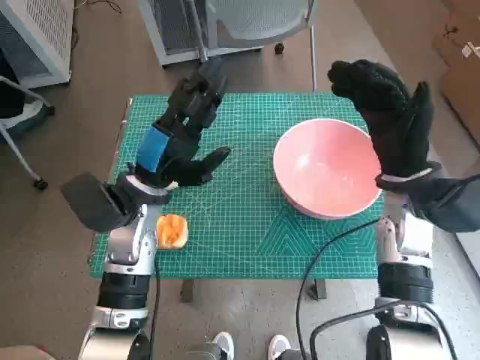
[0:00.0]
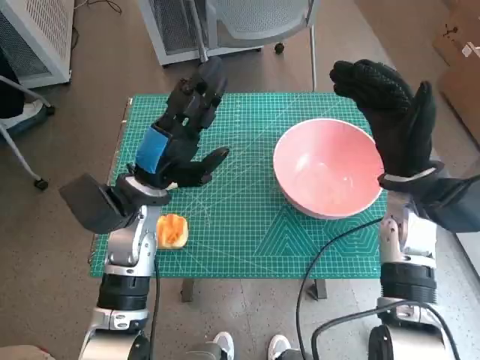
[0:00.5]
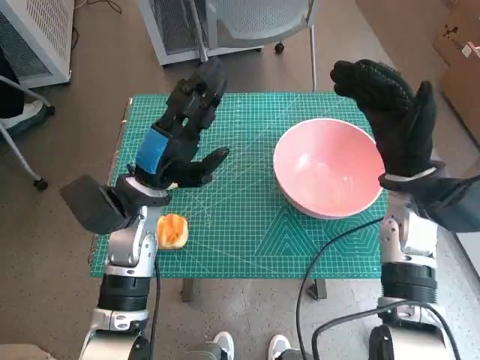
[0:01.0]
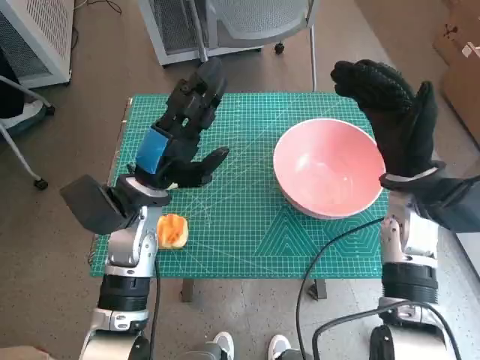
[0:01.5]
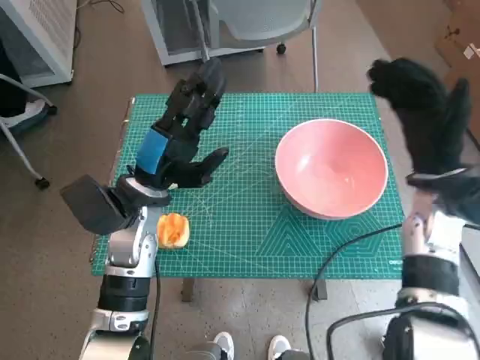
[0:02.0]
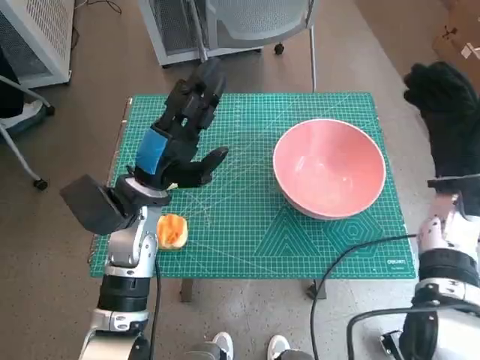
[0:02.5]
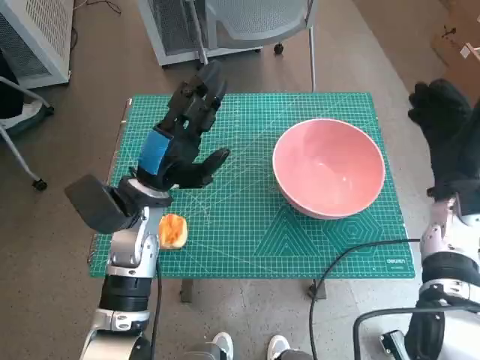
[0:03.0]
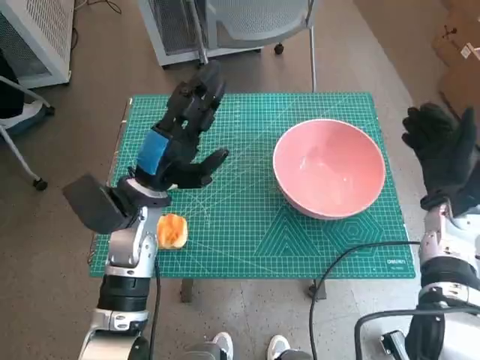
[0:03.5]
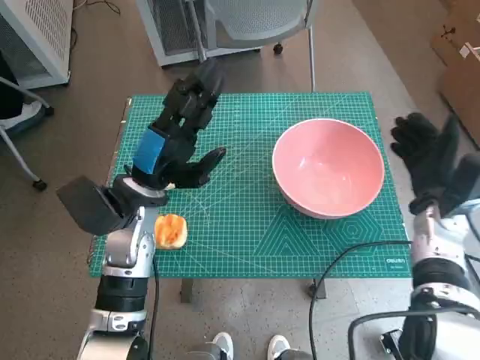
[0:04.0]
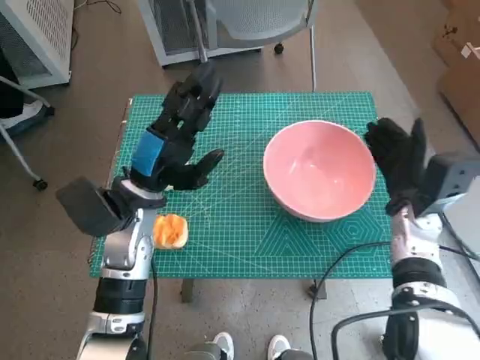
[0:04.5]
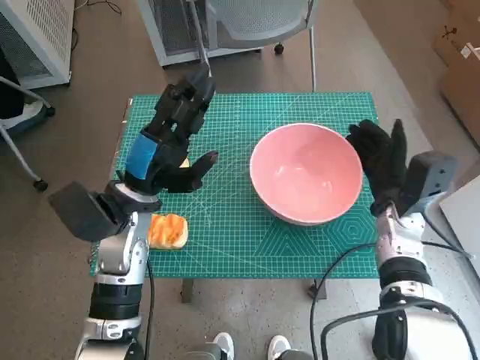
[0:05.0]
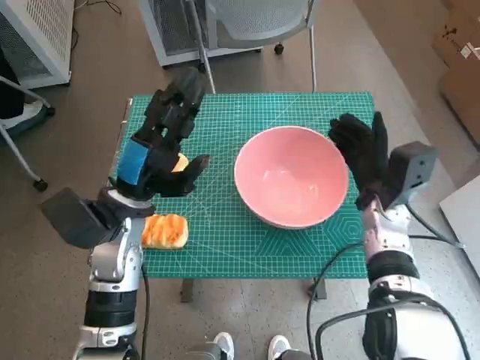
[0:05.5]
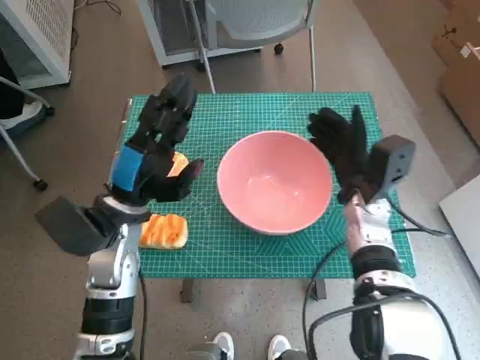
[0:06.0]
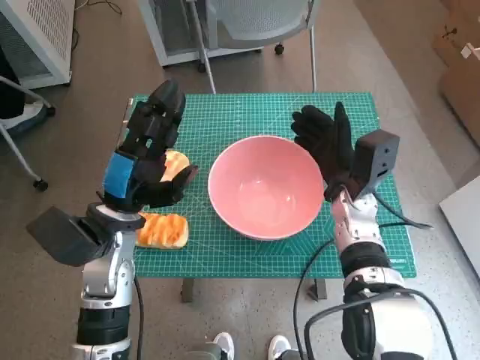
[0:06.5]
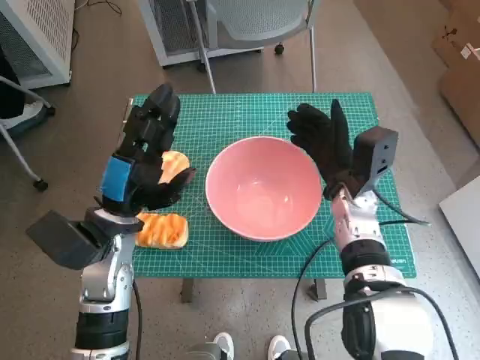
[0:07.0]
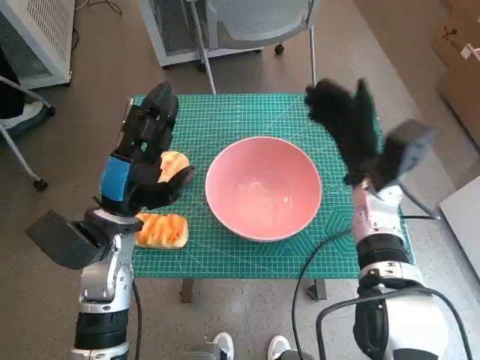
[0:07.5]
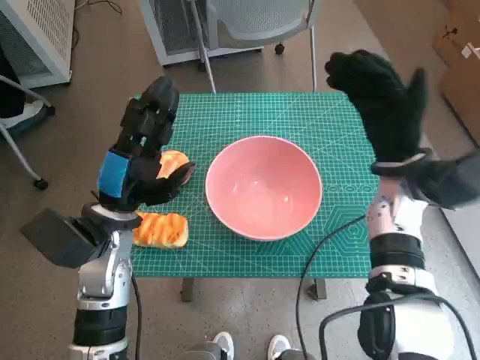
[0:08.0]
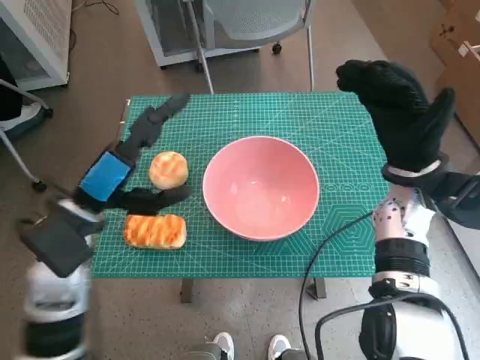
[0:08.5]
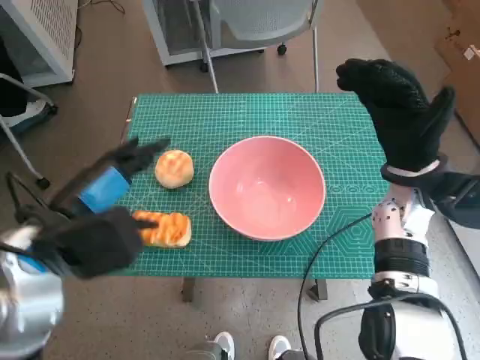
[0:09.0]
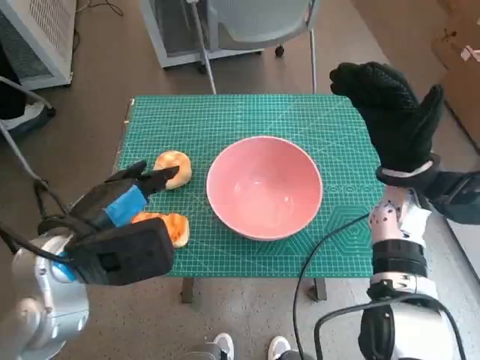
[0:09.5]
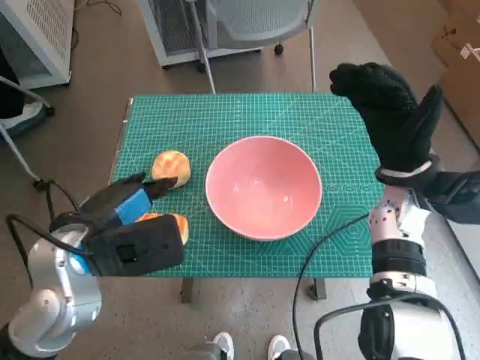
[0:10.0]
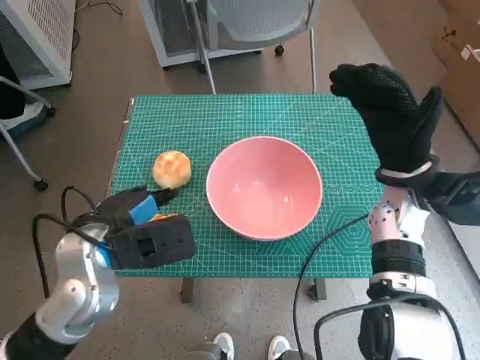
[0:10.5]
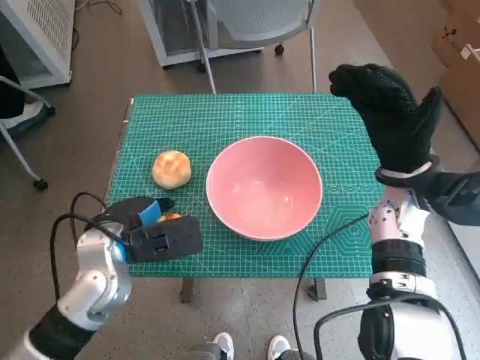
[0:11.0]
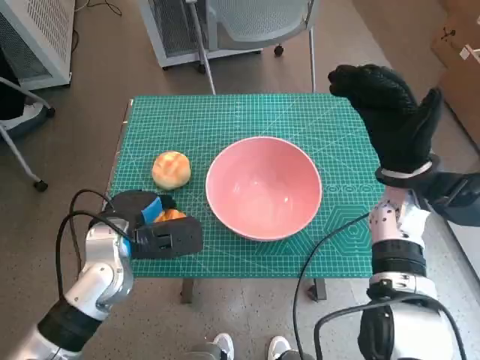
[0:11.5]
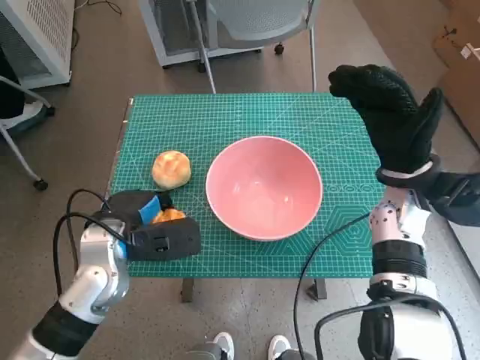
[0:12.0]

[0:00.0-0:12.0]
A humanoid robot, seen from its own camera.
Step, 0:00.0 to 0:07.0: Move the pink bowl to the center of table with right hand.
Step, 0:07.5 to 0:11.0: Grasp the long bread with left hand.
0:02.0 to 0:04.0: The right hand goes about 5 cm downward.
0:04.0 to 0:06.0: The right hand is displaced to the left by approximately 10 cm.
0:06.0 to 0:08.0: The right hand is displaced upward by approximately 5 cm.
0:08.0 to 0:10.0: The left hand is displaced upward by approximately 5 cm.
0:10.0 to 0:12.0: The left hand is displaced downward by roughly 5 cm.

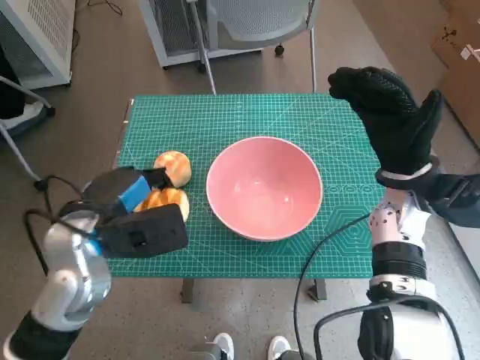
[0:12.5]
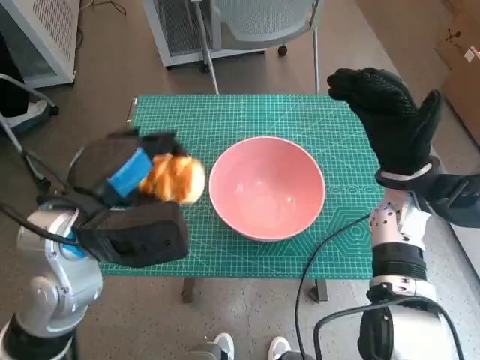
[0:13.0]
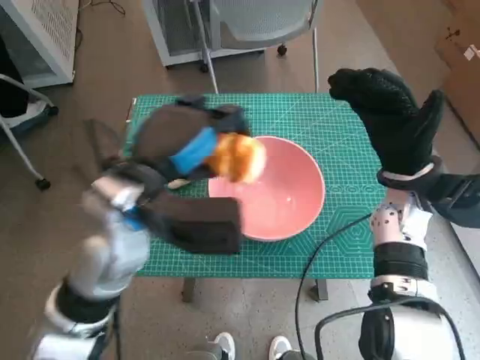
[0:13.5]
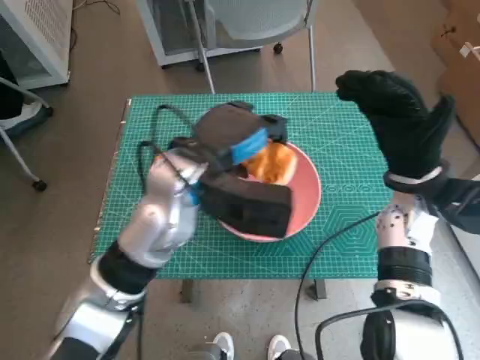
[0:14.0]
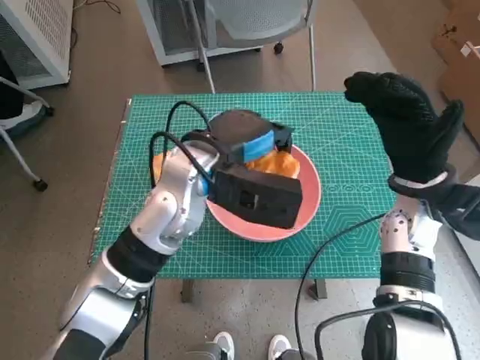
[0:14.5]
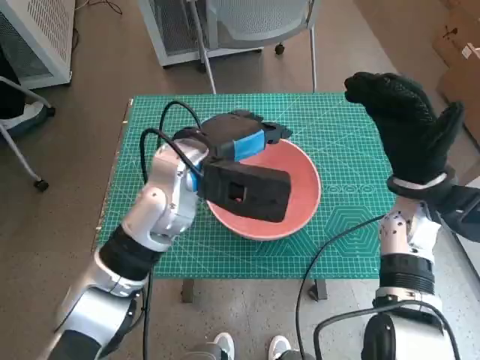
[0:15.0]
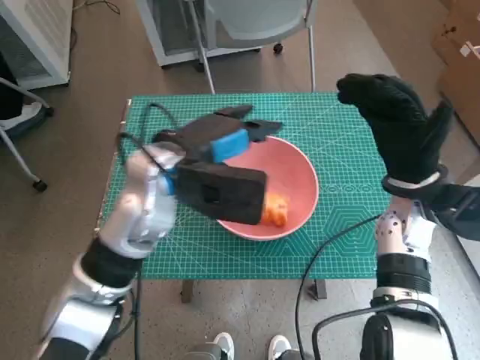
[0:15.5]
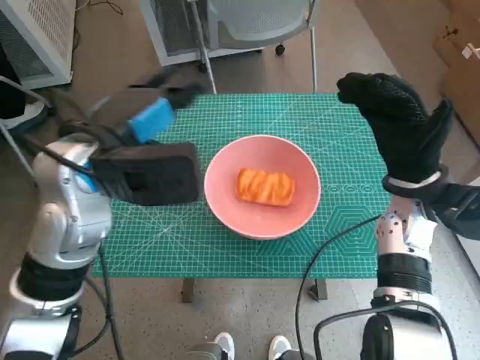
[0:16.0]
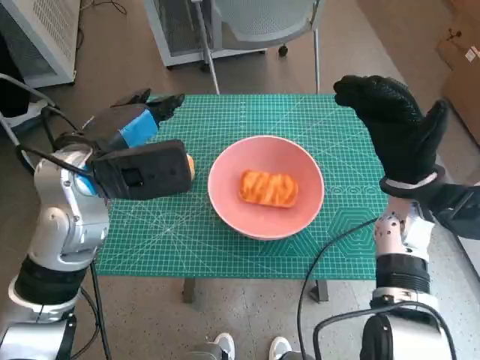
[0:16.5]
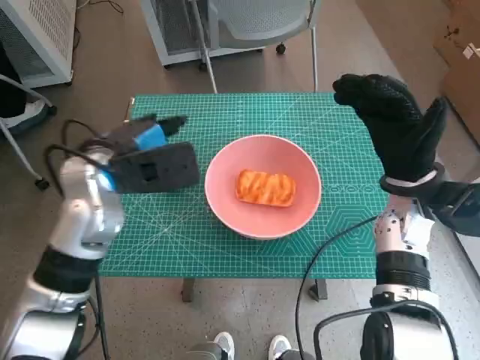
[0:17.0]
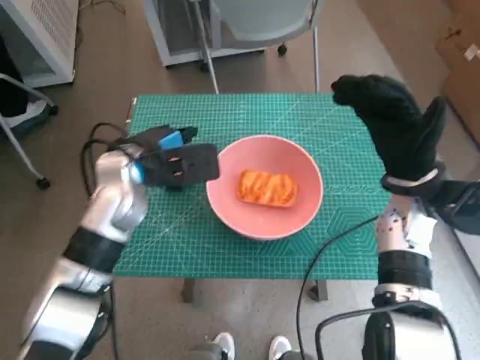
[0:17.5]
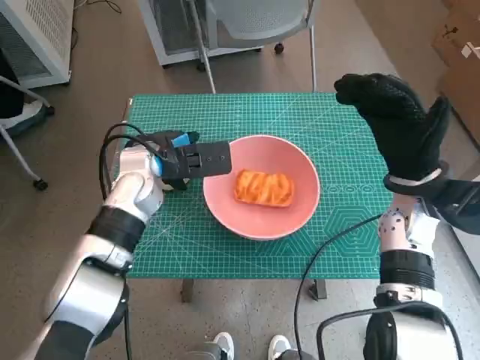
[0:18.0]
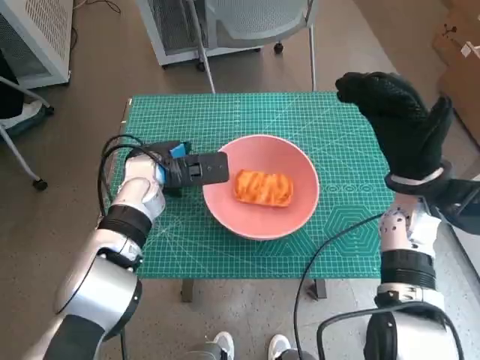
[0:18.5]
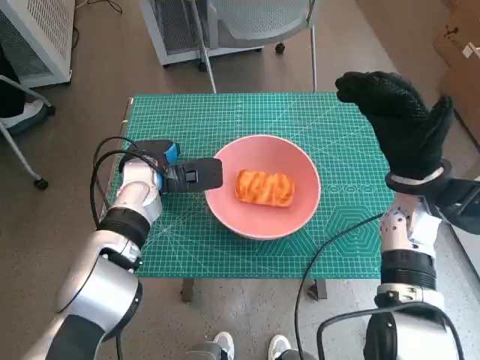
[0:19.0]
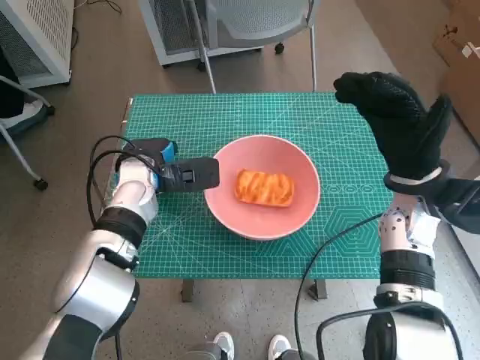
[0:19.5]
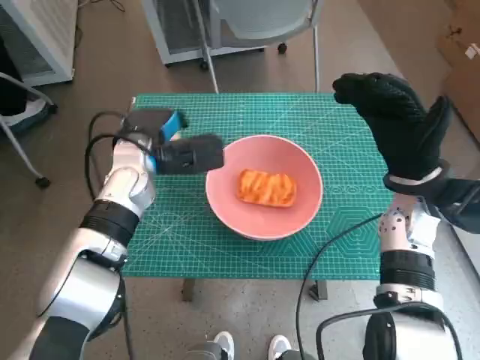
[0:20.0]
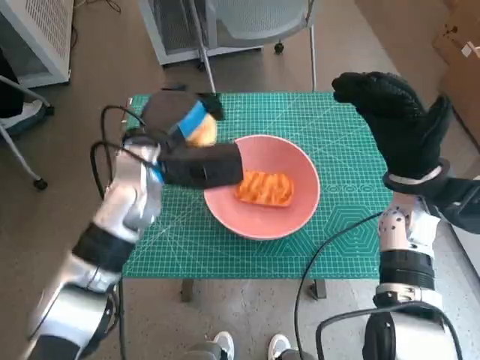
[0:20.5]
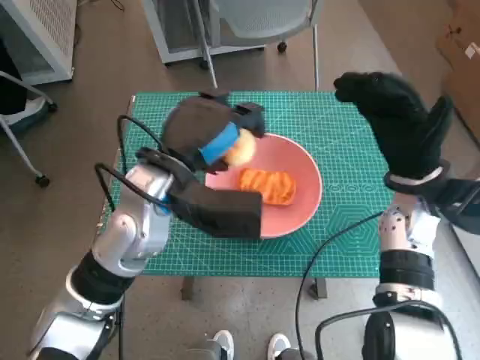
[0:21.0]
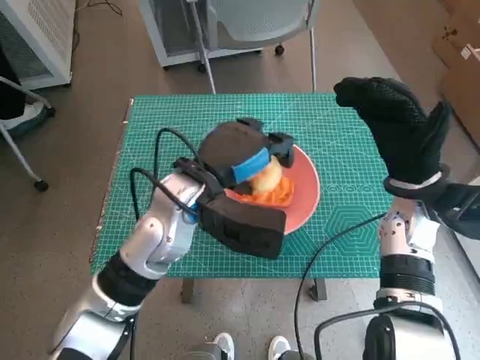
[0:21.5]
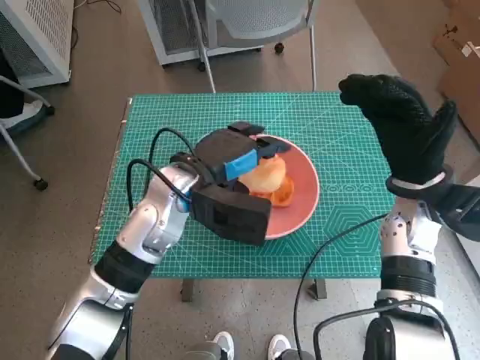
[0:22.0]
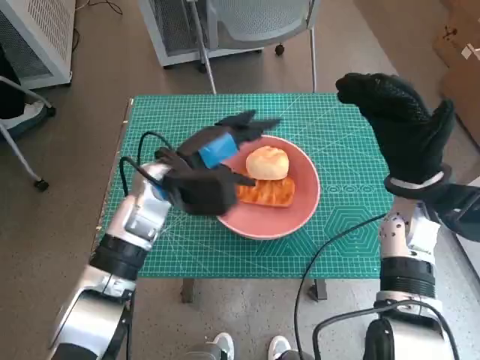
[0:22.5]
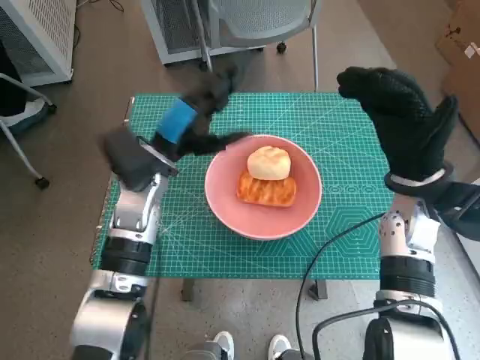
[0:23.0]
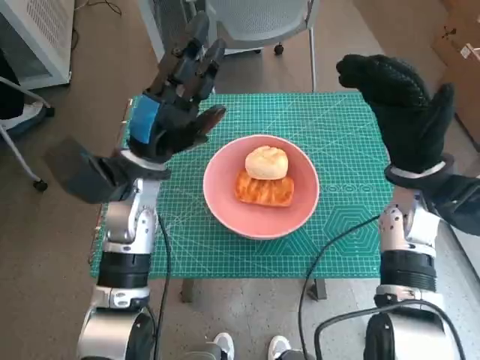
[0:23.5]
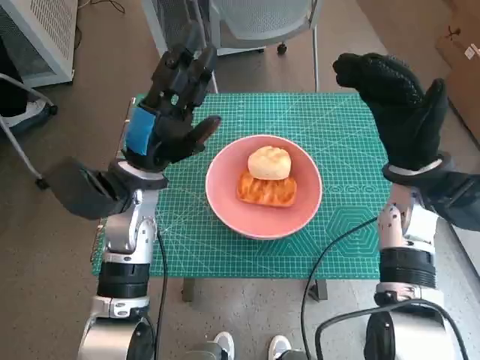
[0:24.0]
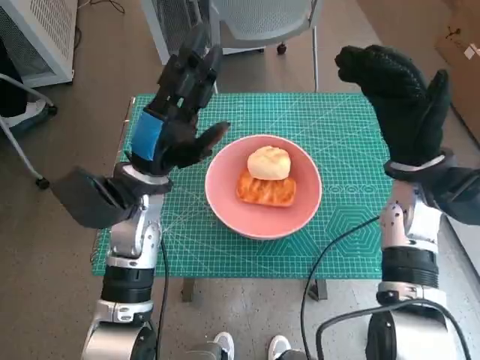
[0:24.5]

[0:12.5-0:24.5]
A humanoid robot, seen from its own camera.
Step, 0:12.5 to 0:15.0: Place the long bread in pink bowl with left hand.
Step, 0:15.5 to 0:19.0: Grasp the round bread with left hand.
Step, 0:19.5 to 0:22.0: Place the round bread in pink bowl with left hand.
0:12.5 to 0:14.5: The left hand is displaced to the right and forward by roughly 15 cm.
0:14.5 to 0:16.5: The left hand heads to the left, covering roughly 10 cm.
0:16.5 to 0:18.5: The left hand shifts approximately 15 cm downward and forward.
0:18.5 to 0:20.5: The left hand moves upward, approximately 5 cm.
